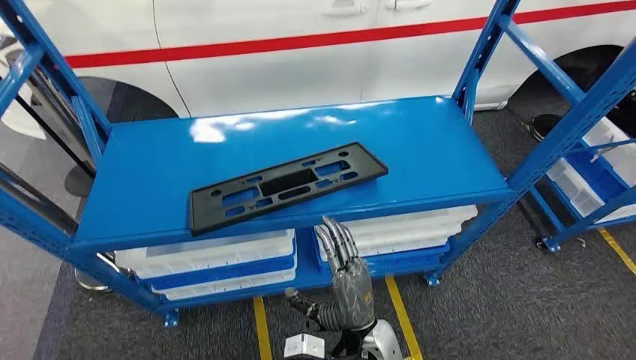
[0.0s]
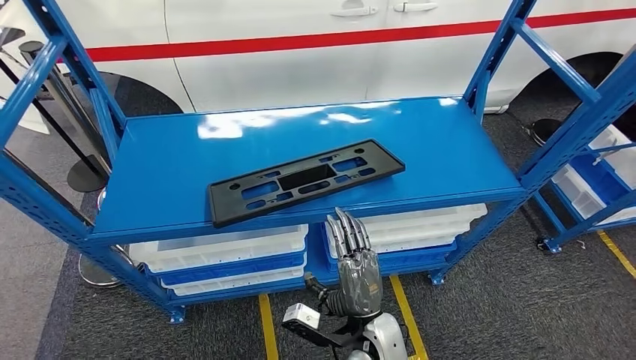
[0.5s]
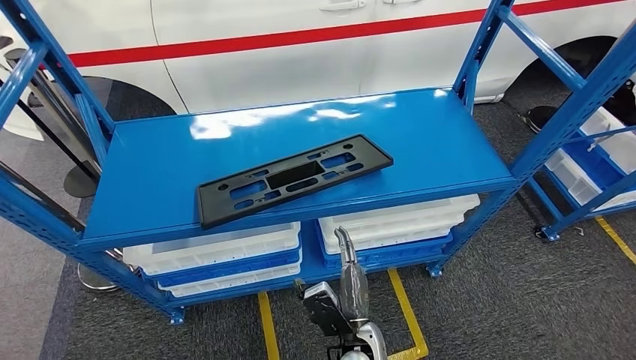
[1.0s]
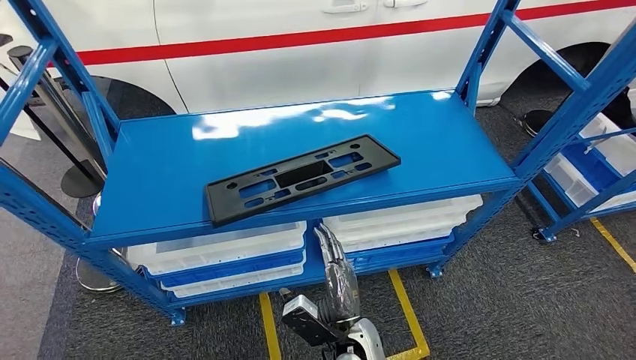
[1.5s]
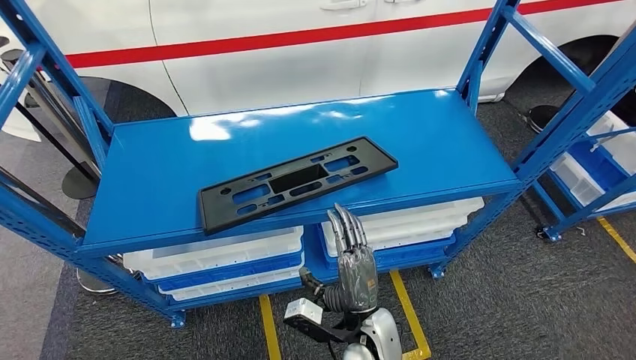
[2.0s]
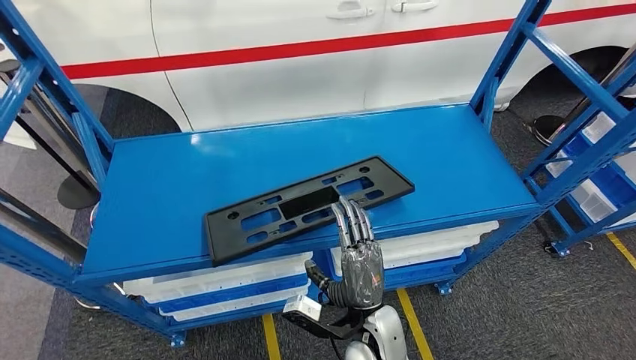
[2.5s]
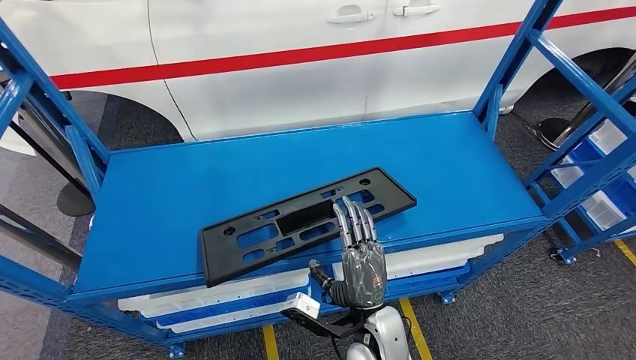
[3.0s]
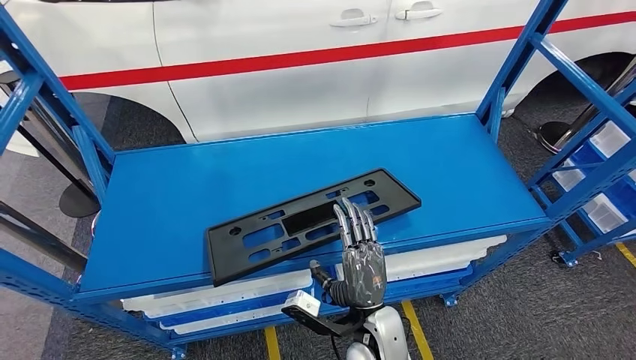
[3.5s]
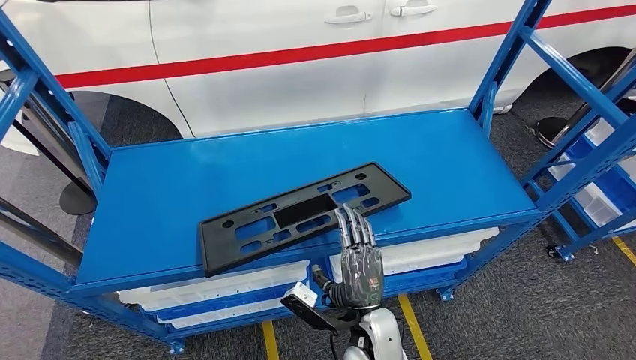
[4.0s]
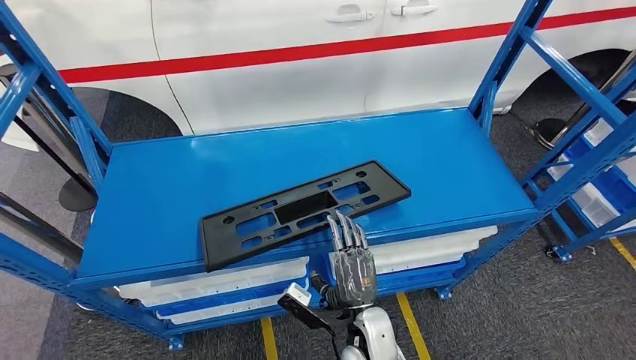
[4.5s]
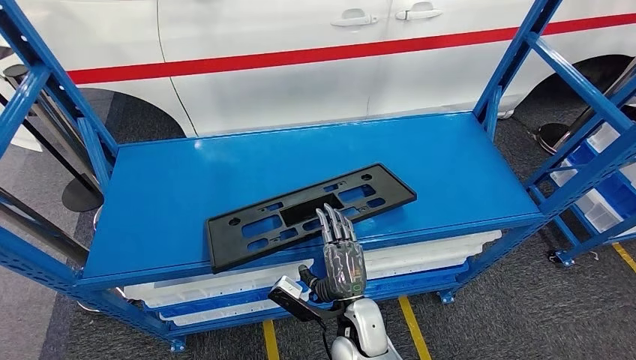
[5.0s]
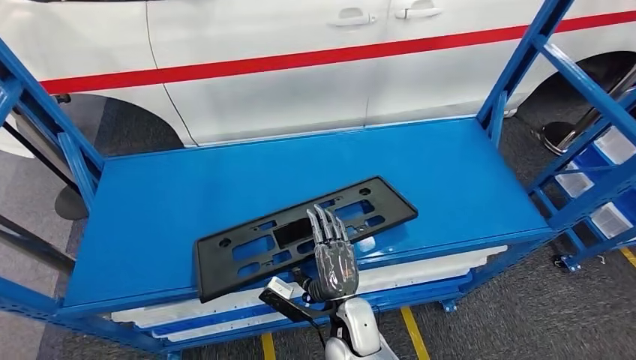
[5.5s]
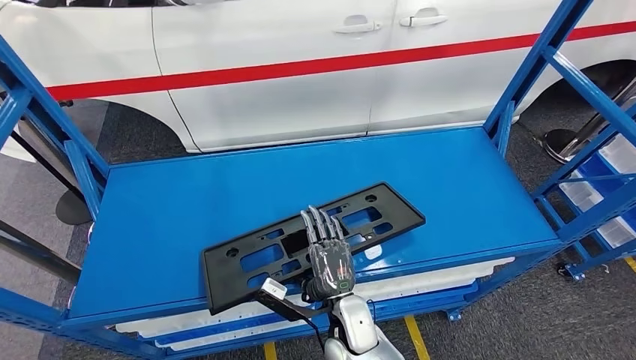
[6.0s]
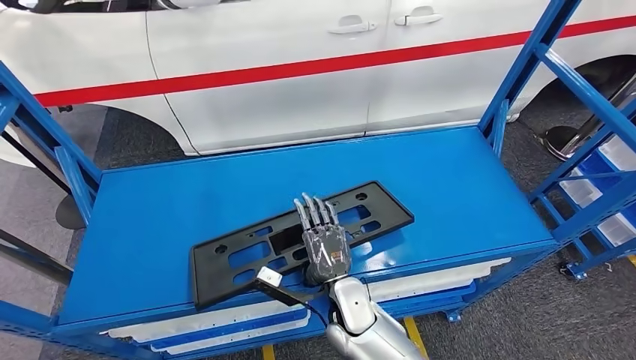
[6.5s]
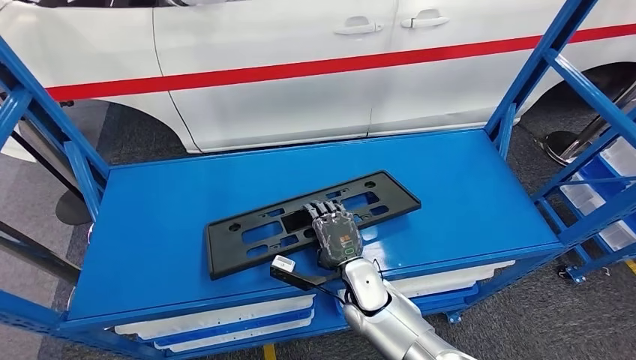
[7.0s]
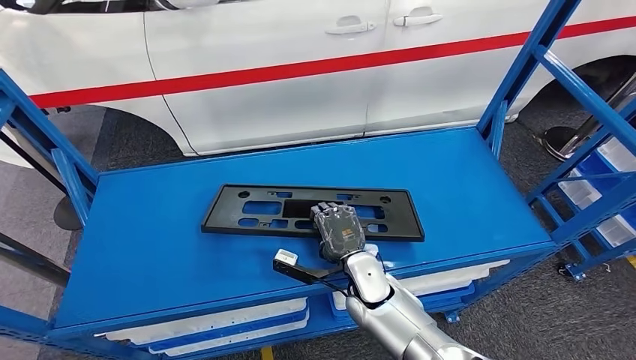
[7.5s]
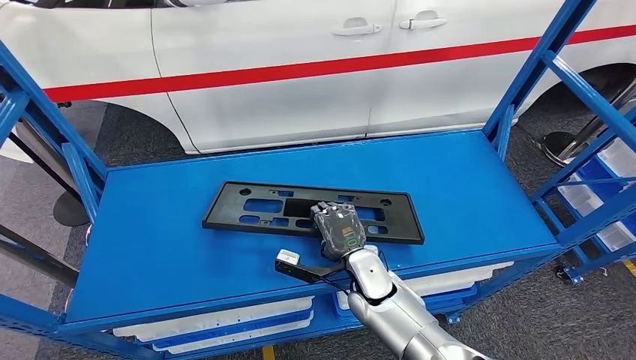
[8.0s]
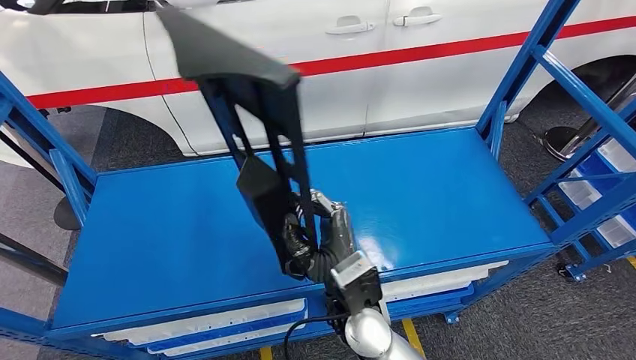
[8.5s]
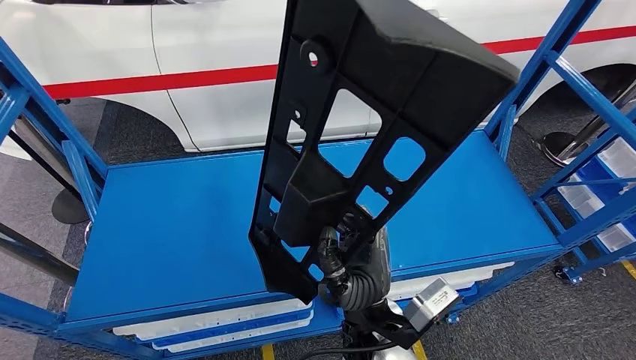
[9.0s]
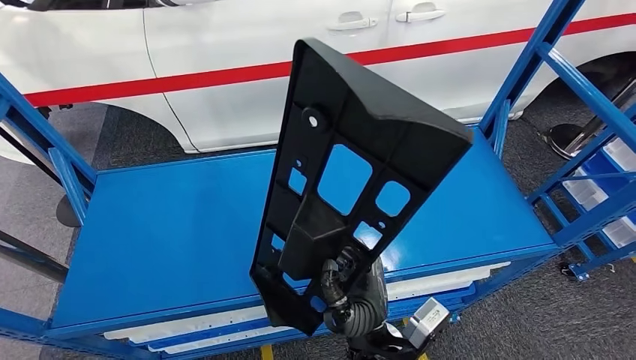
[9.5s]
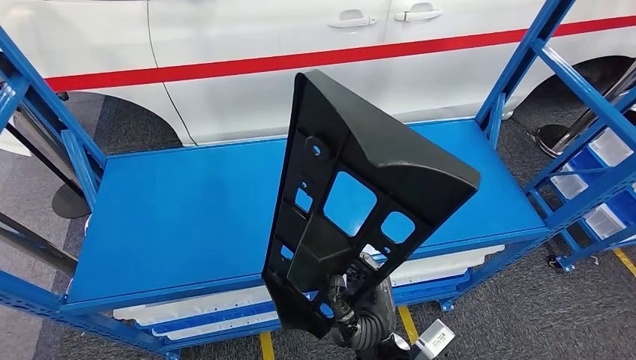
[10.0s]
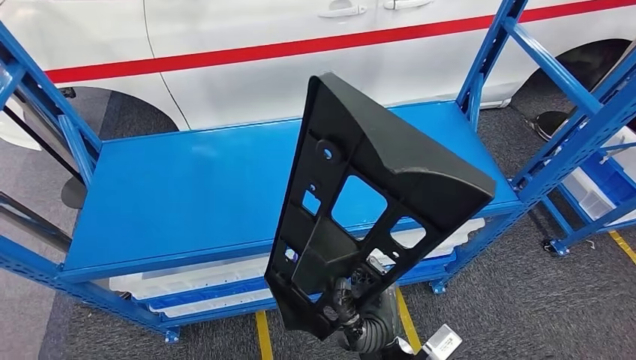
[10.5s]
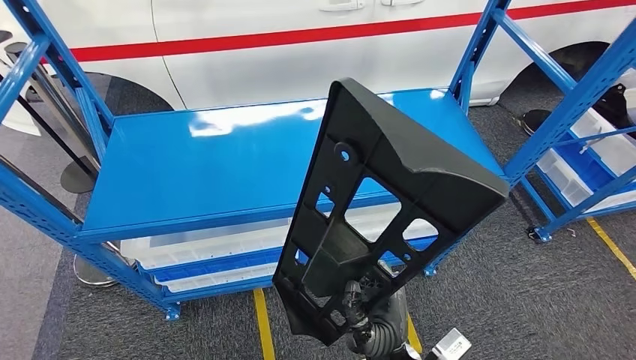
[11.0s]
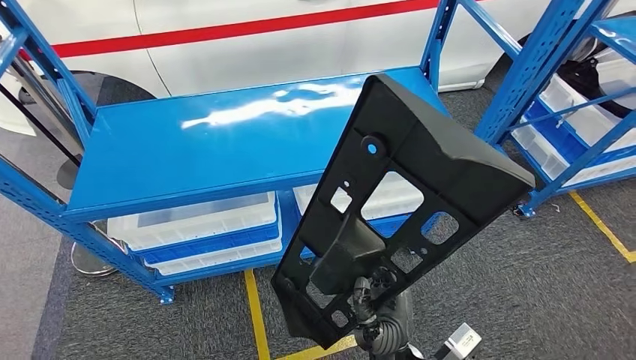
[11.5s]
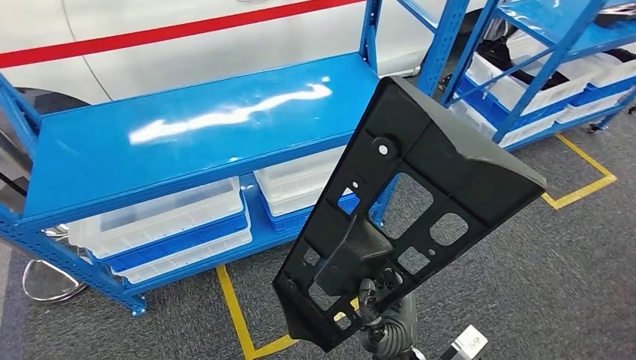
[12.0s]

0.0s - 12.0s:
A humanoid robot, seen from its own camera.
Step, 0.0s - 10.5s: Pick up the large material from the shelf.

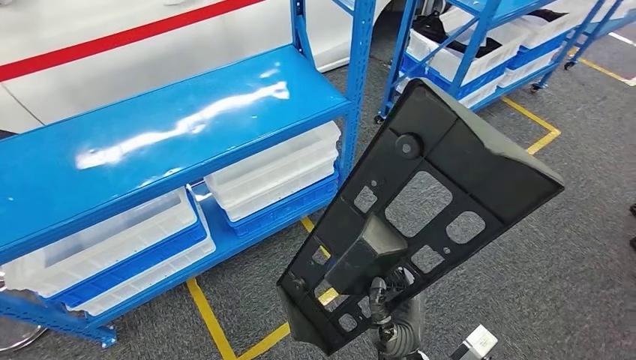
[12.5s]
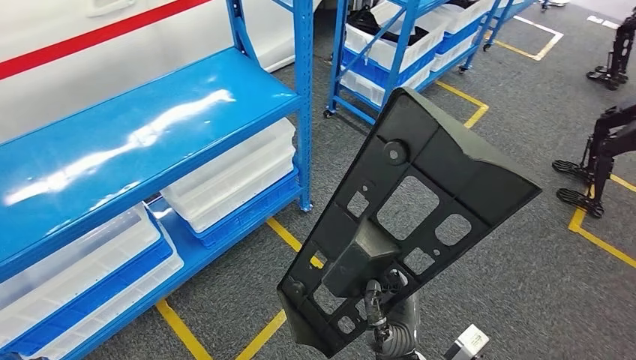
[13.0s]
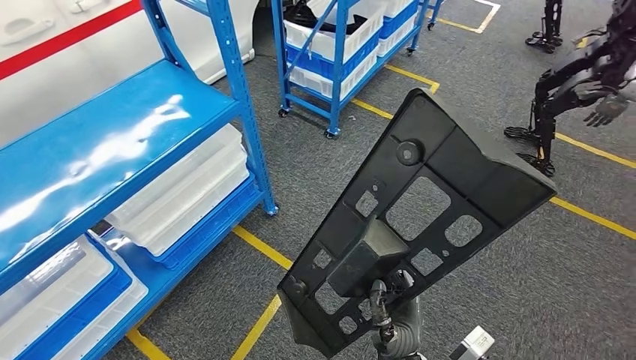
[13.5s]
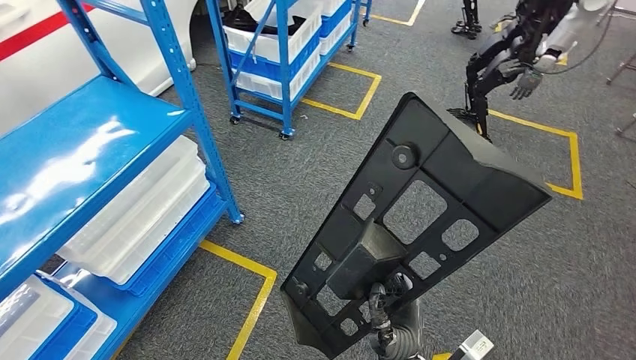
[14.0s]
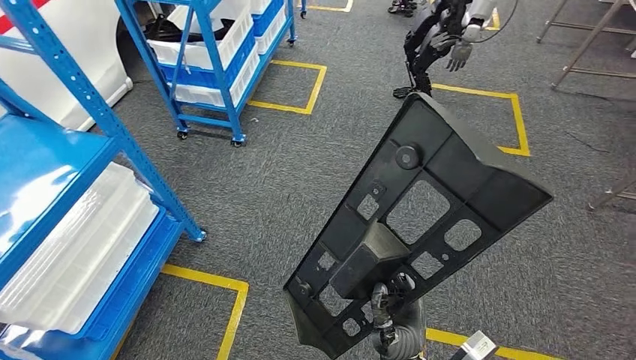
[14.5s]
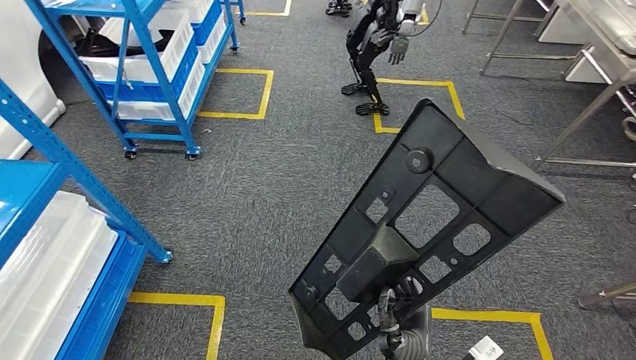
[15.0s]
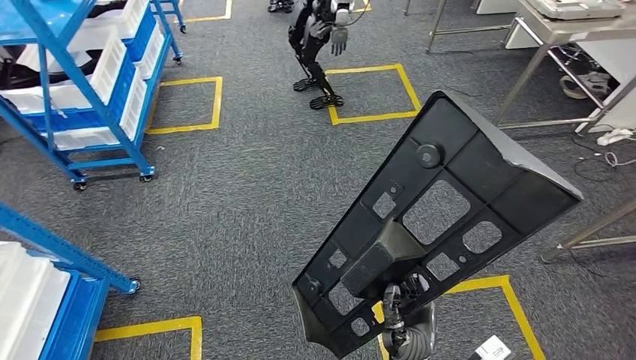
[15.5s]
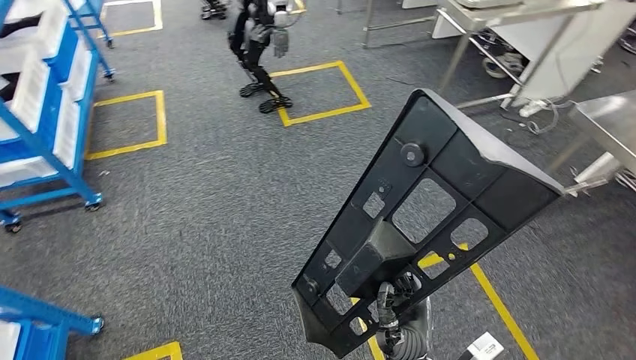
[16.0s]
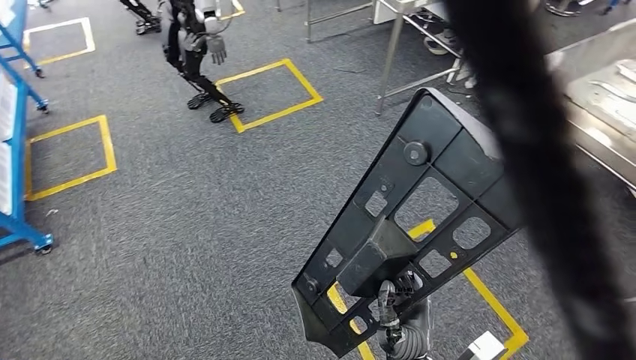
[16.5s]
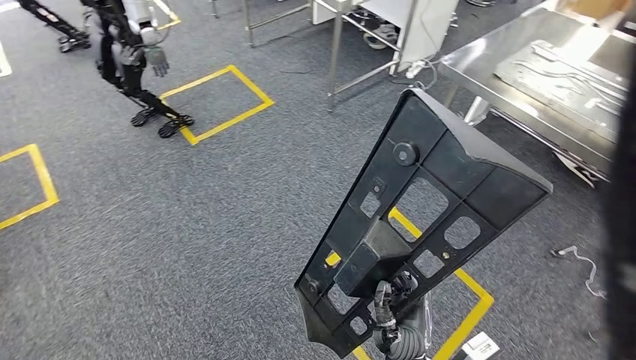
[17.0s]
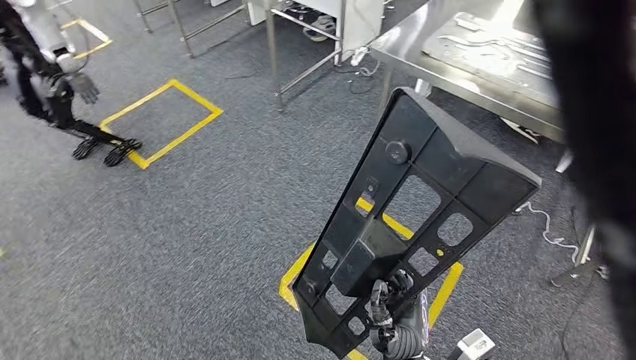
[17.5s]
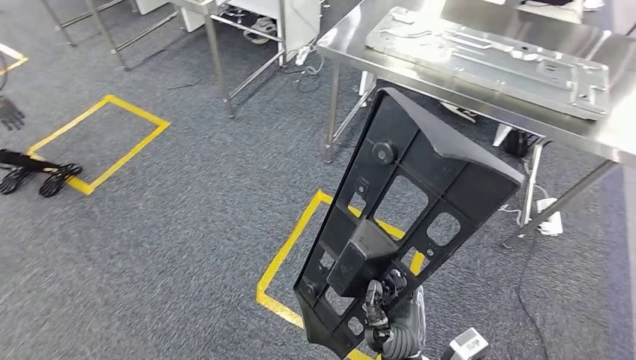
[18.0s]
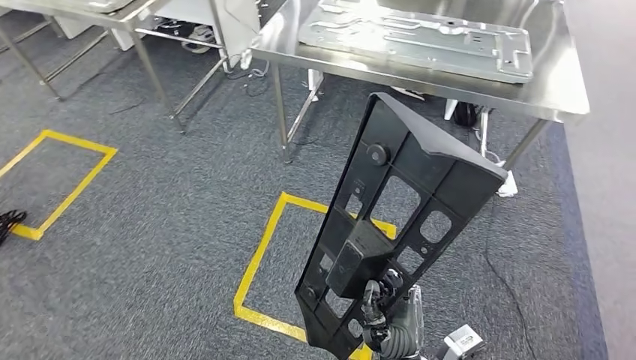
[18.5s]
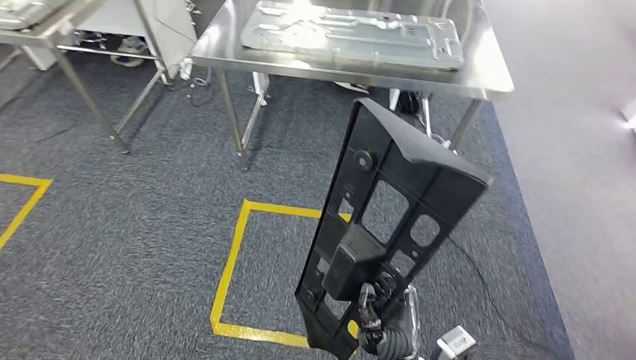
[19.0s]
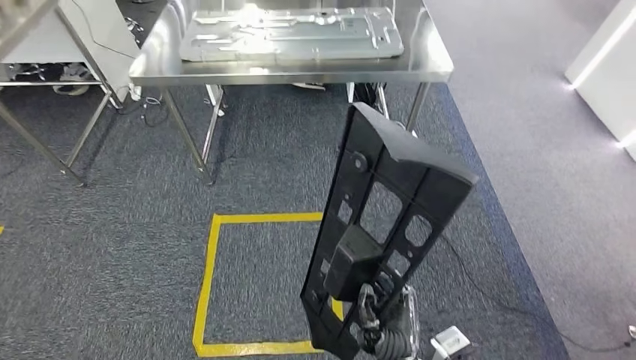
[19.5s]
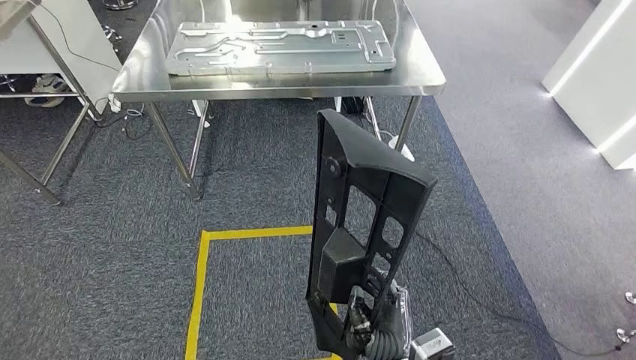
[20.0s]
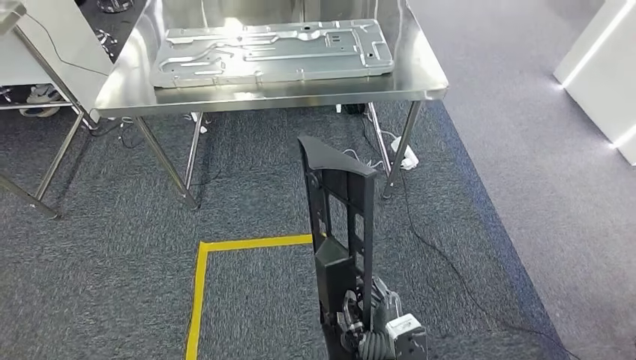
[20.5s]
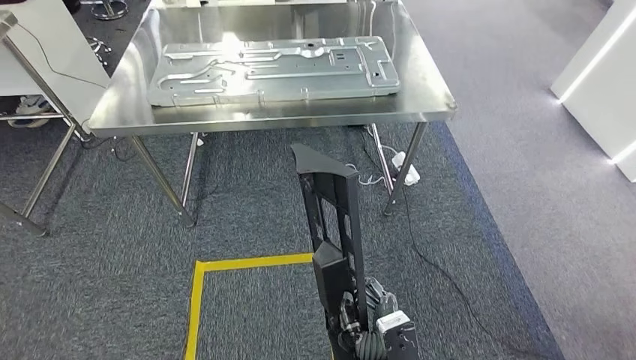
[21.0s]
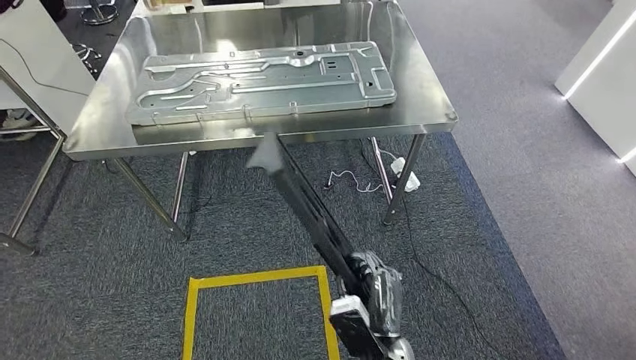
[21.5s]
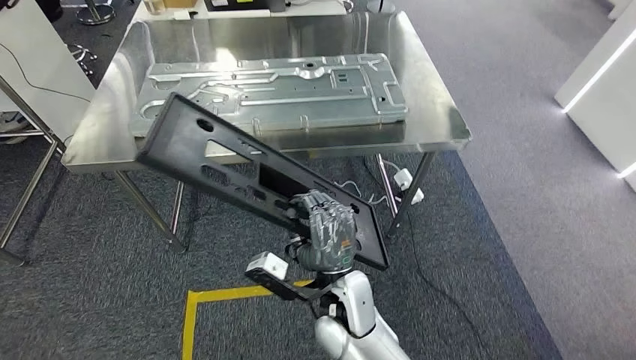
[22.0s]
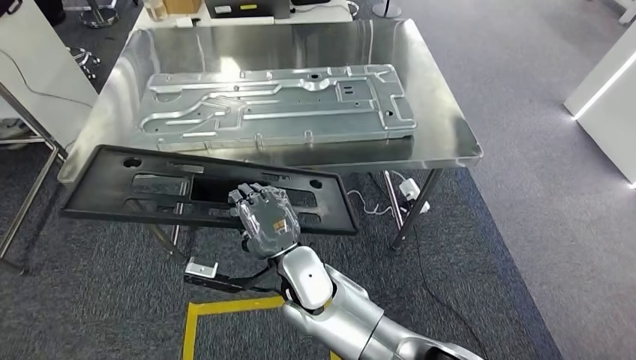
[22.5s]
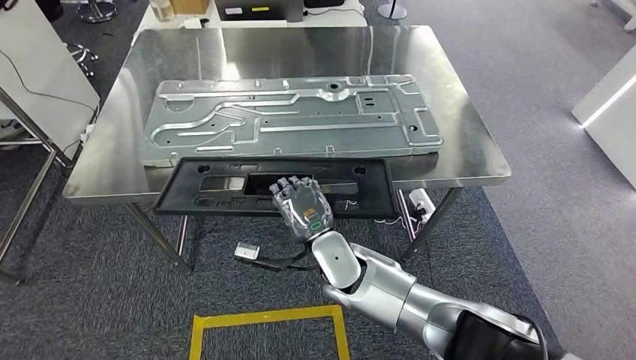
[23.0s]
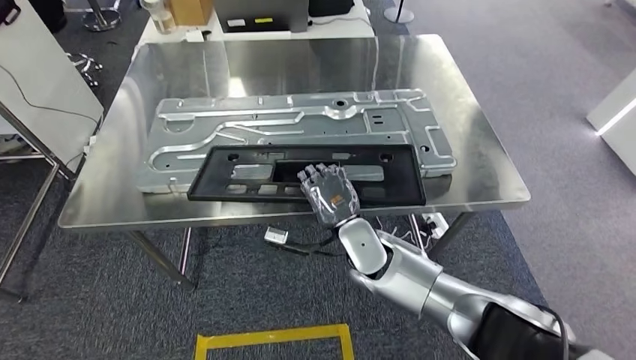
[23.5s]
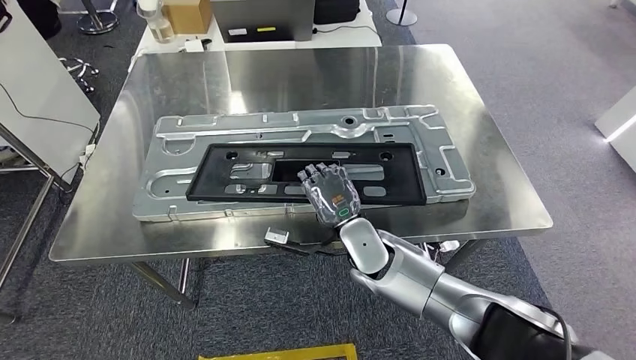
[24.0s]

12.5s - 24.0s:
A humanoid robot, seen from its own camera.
Step, 12.5s - 23.0s: Move the large material to the workbench.
